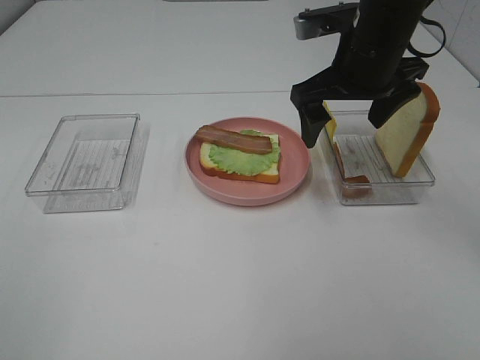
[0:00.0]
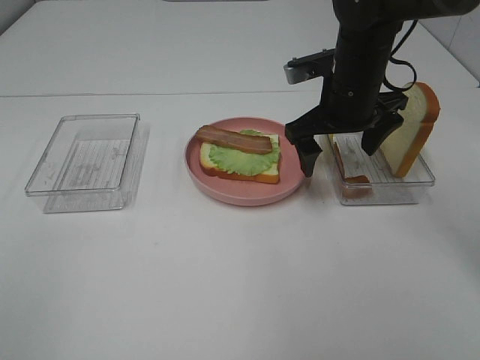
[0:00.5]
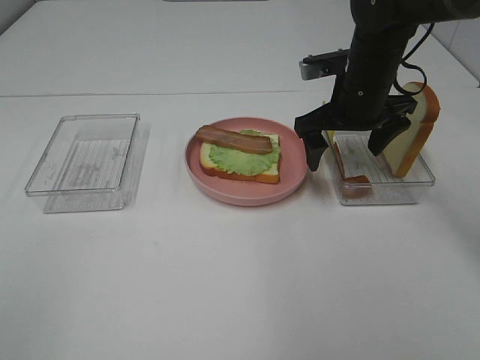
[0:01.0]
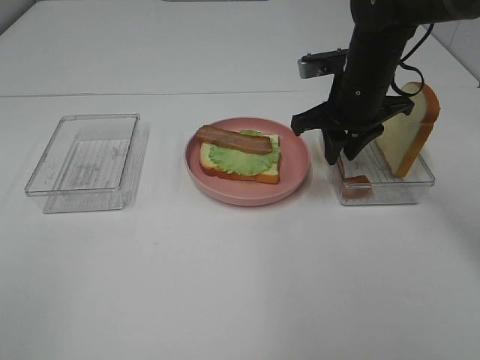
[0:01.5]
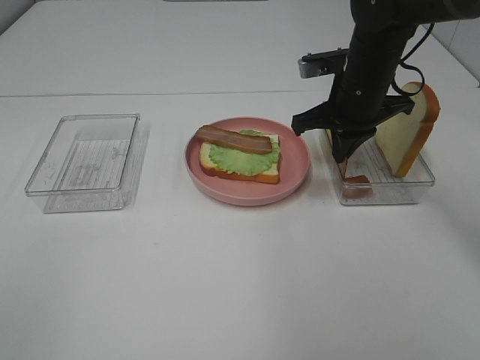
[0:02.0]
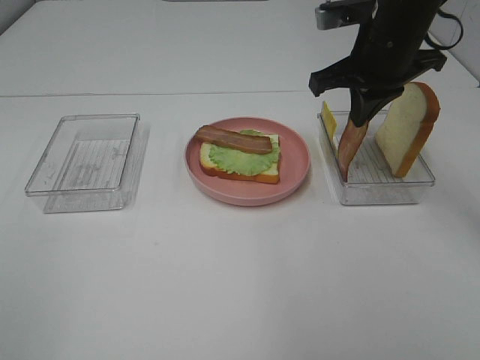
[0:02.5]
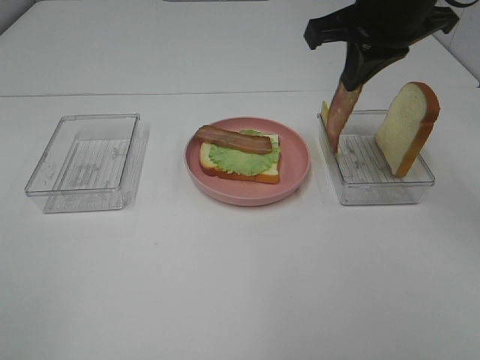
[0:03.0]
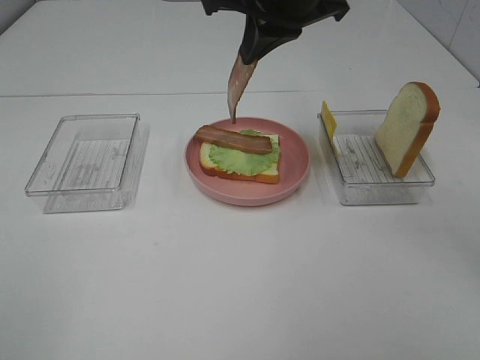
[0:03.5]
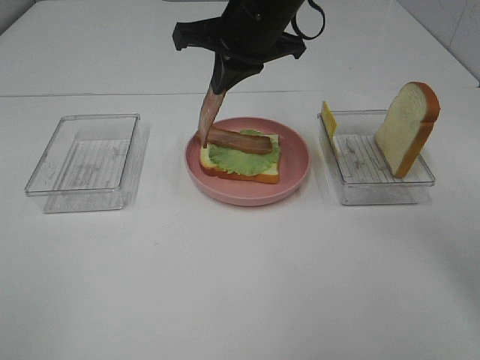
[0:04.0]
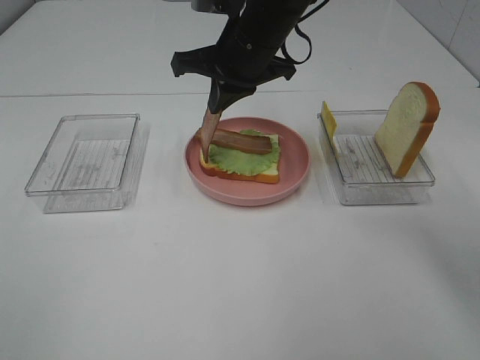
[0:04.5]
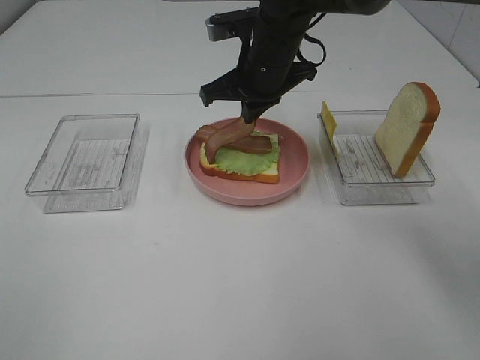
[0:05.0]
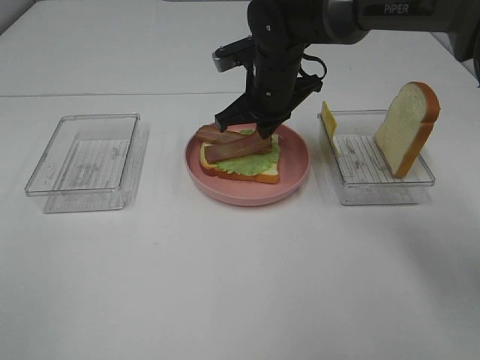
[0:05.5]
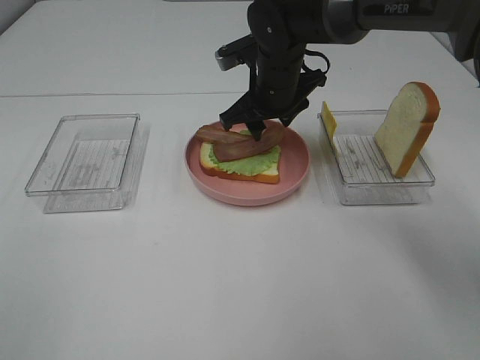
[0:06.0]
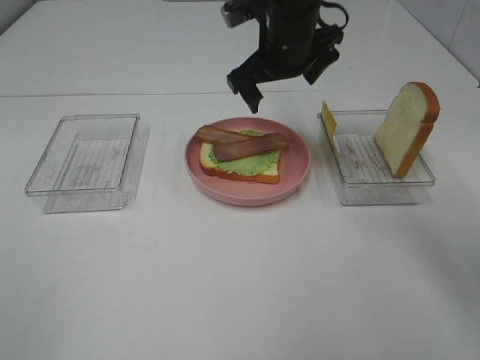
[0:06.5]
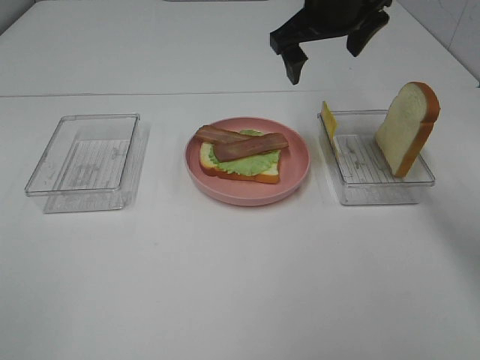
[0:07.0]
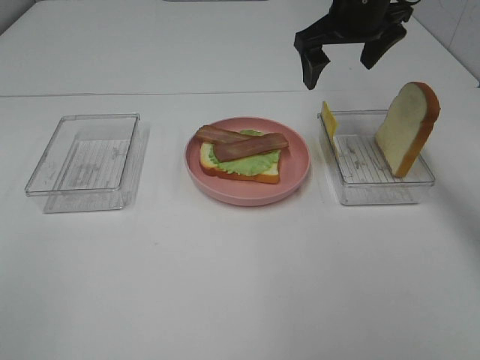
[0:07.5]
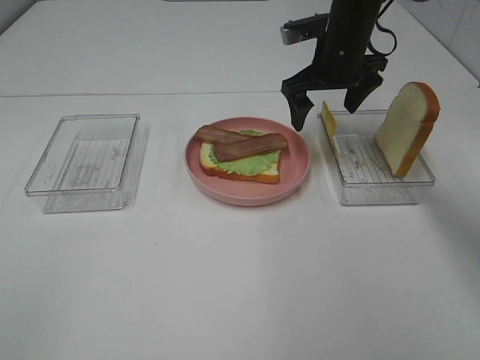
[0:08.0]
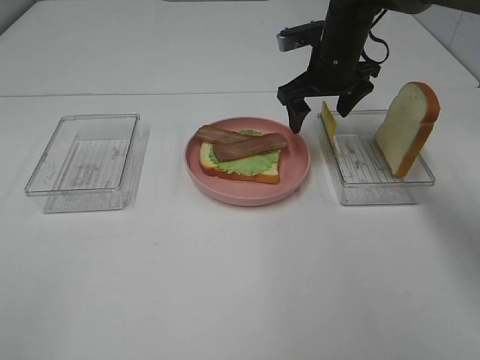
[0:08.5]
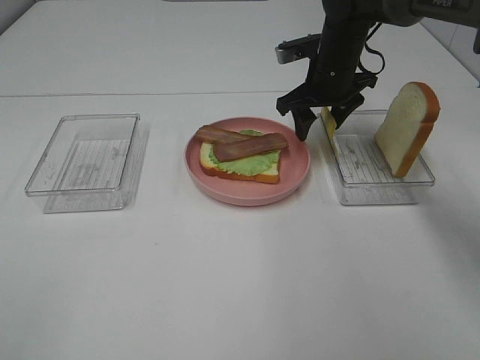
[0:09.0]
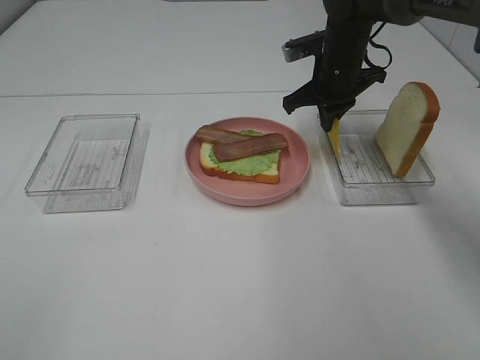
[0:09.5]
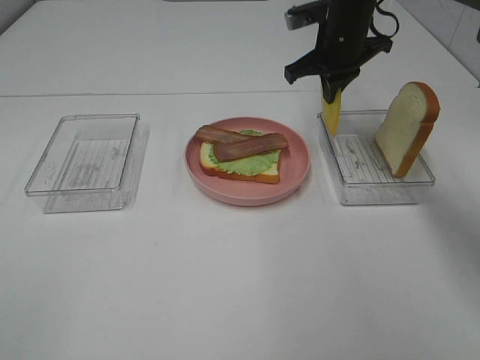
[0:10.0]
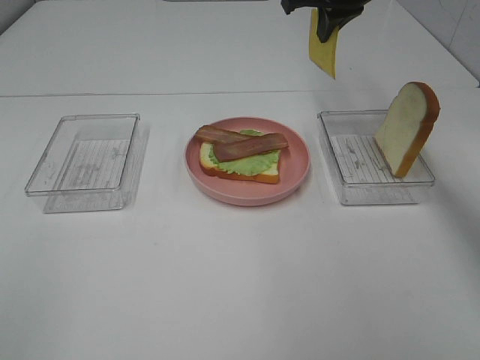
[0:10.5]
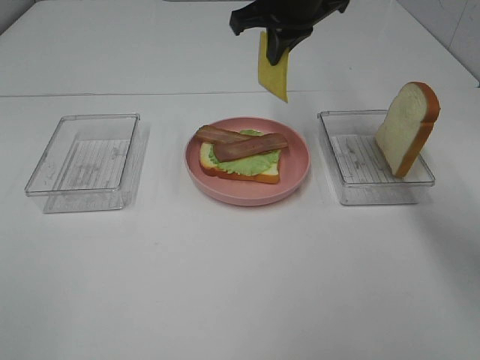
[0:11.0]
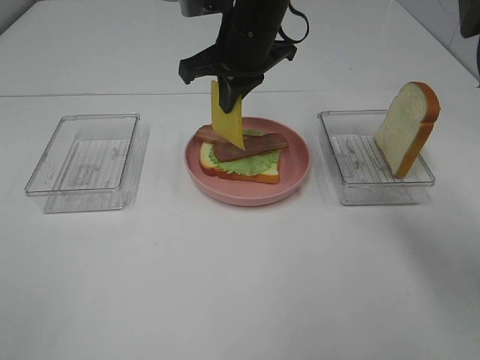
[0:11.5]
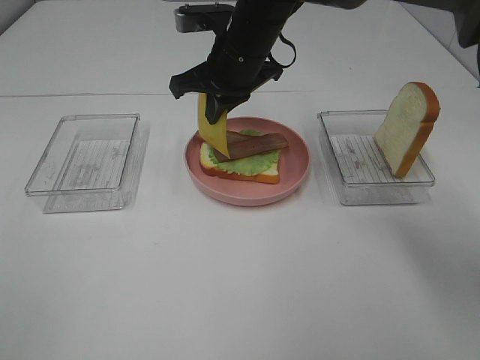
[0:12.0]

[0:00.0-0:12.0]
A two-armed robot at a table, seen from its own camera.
Task of the whole recording: Make sandwiches.
Step, 0:02.0 to 0:06.0: Right hand:place bacon on bacon.
Step, 0:06.5 to 0:09.5: Right hand:grab the cheese slice.
0:00.0 to 0:02.0: The right gripper heads downward, covering about 5 cm, and closes.
0:02.0 to 0:04.0: The right gripper travels to the left and upward by some 15 cm.
0:04.0 to 0:06.0: The right gripper goes roughly 10 cm downward, and opens.
0:06.0 to 0:08.0: The right gripper is displaced to the right by about 10 cm, reaches roughly 10 cm upward, then returns, and opens its fingers.
0:08.0 to 0:10.0: The right gripper closes its fingers.
0:10.0 to 0:12.0: The right gripper travels to the left and backward by some 15 cm.

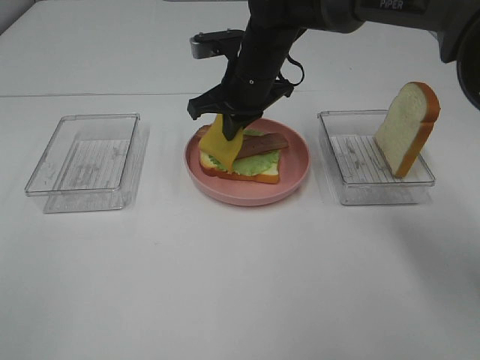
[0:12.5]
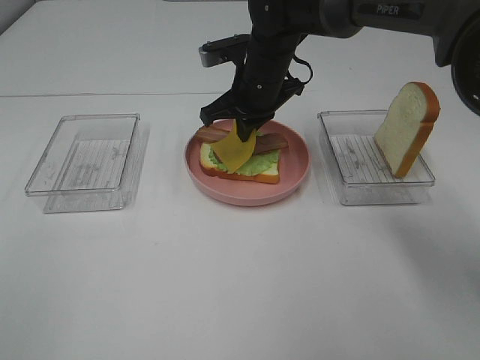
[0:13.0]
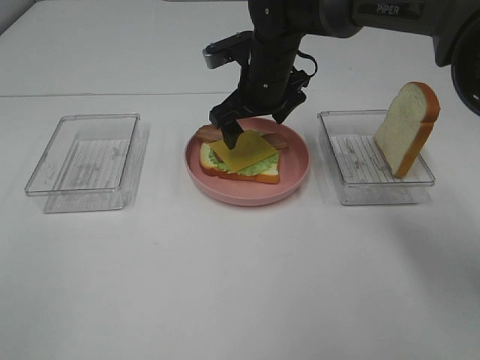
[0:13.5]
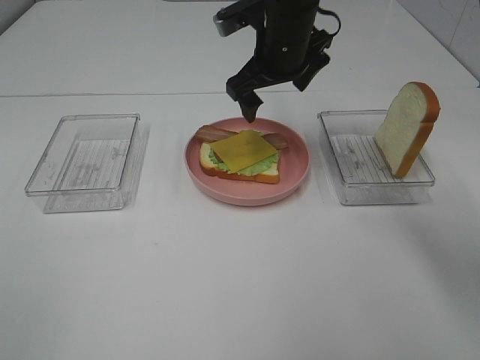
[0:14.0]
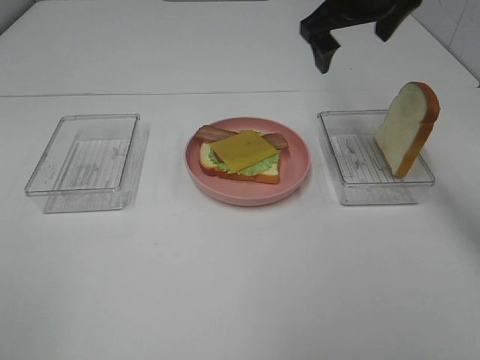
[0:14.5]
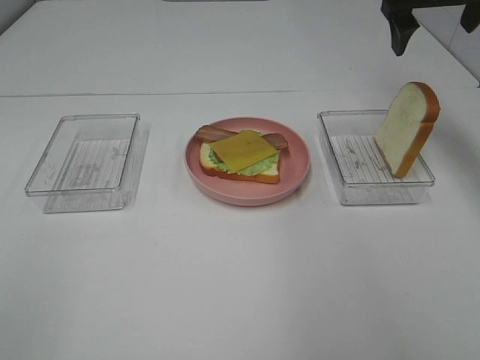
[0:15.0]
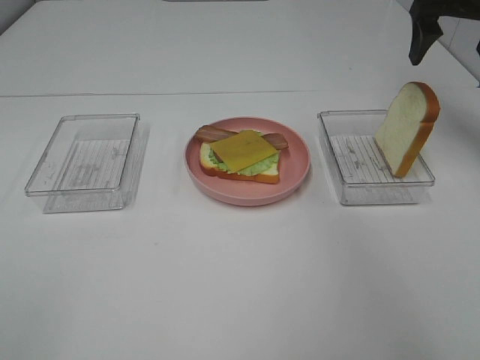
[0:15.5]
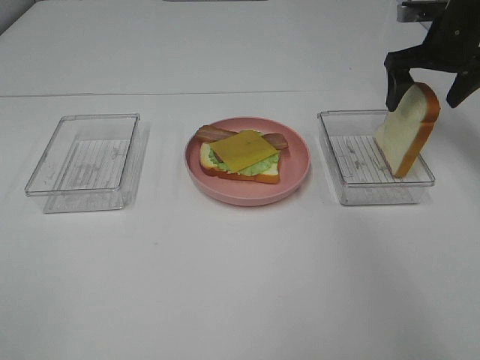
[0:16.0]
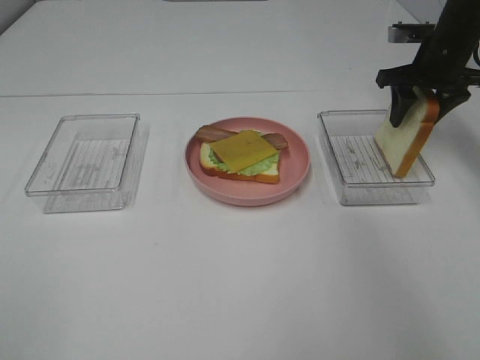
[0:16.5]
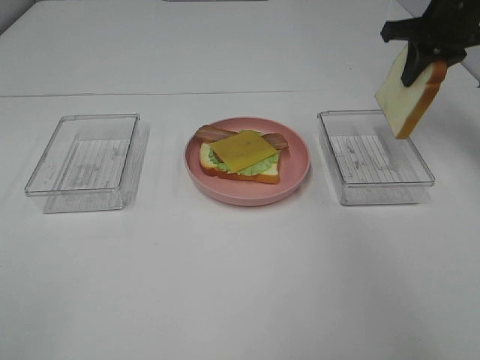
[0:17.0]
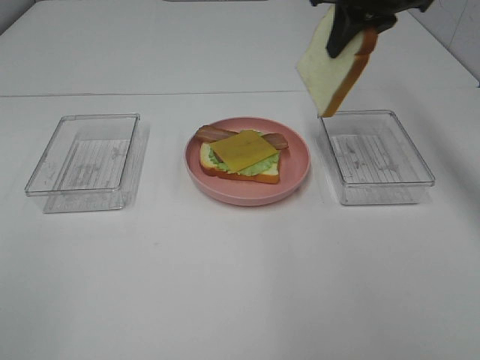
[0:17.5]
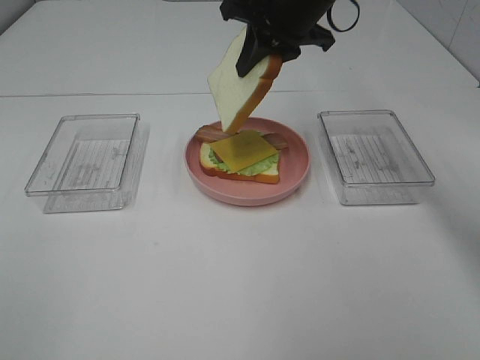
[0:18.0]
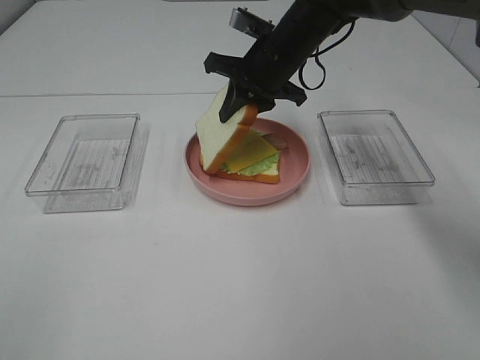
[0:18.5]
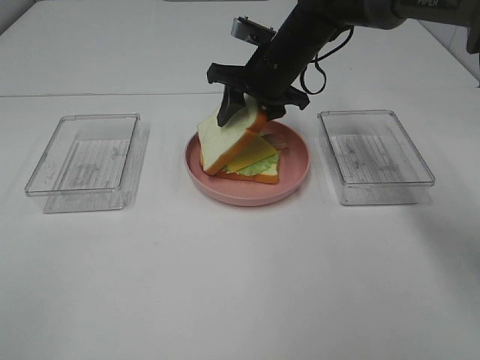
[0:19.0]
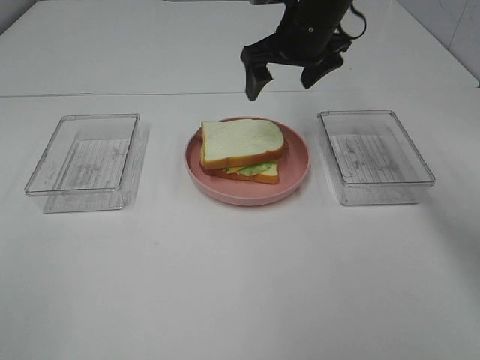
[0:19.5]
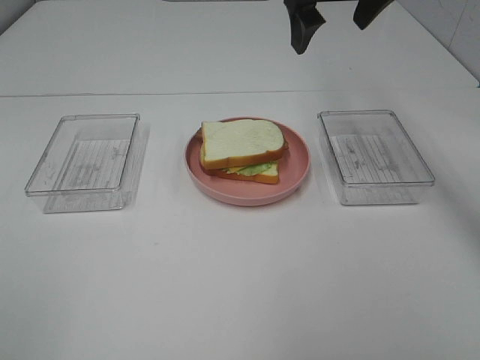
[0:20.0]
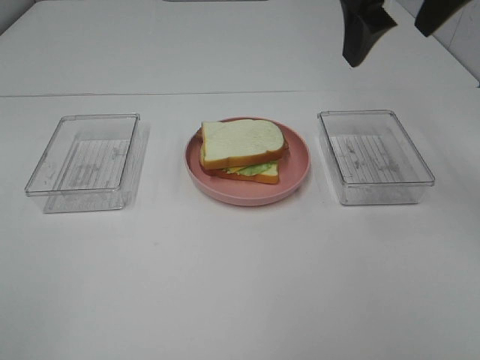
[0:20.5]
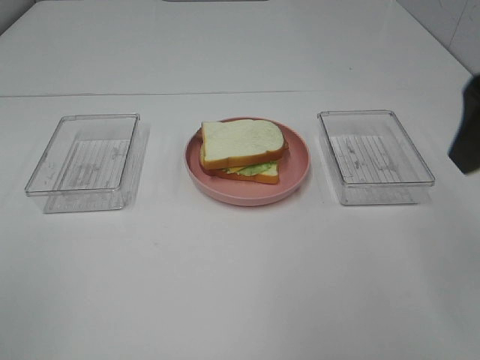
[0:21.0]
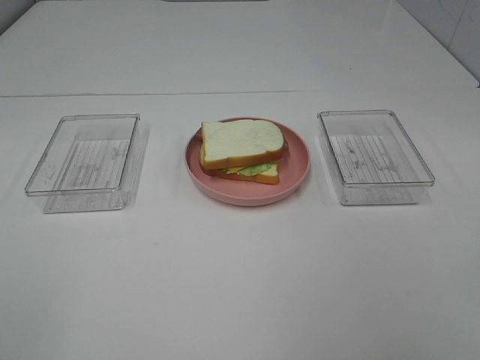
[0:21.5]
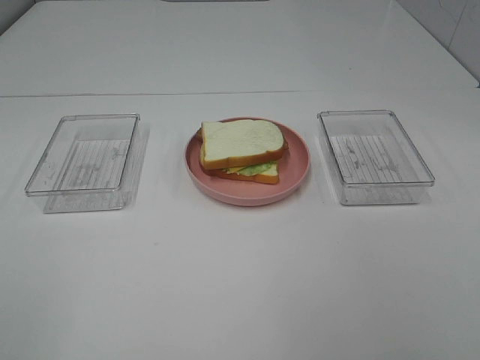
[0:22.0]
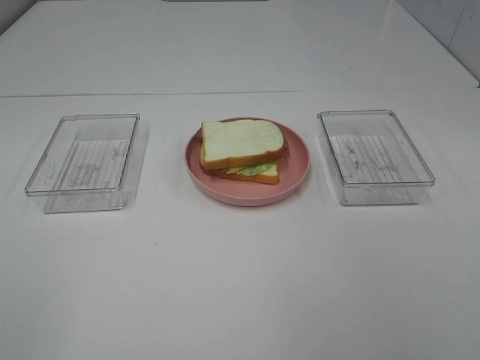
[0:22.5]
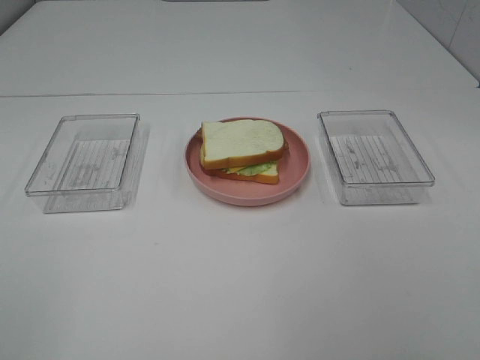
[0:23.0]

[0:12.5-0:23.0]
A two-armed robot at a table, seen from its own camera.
Task of the whole recording: Make sandwiches.
Step, 0:14.5 to 0:16.5: Right hand:grab the bread slice.
Step, 0:17.0 to 0:19.5: Right hand:place the bread slice on the cheese slice.
0:12.5 to 0:14.5: The right gripper shifts about 20 cm upward and to the right, and opens.
0:14.5 to 0:16.5: The right gripper shifts roughly 20 cm to the right and downward, and closes.
0:16.5 to 0:19.0: The right gripper heads to the left, covering approximately 20 cm, and closes, then opens again.
0:19.0 to 0:21.0: The right gripper travels backward, upward and to the right by some 35 cm, and opens its fingers.
0:21.0 to 0:23.0: The right gripper travels backward by roughly 20 cm.

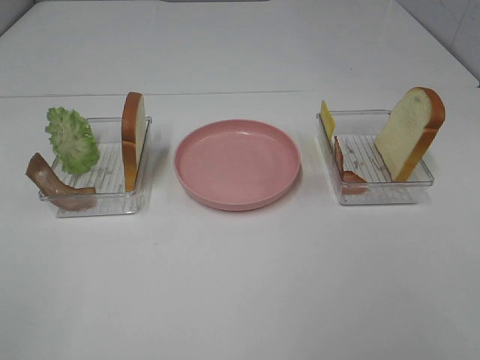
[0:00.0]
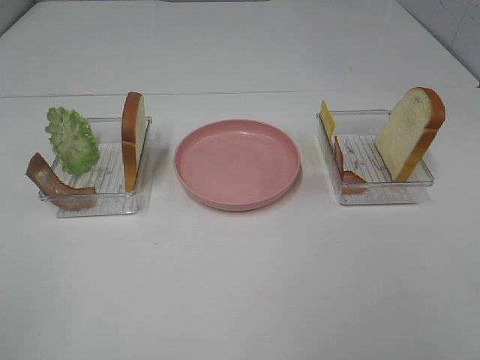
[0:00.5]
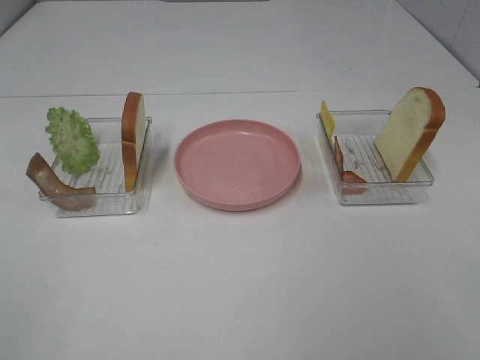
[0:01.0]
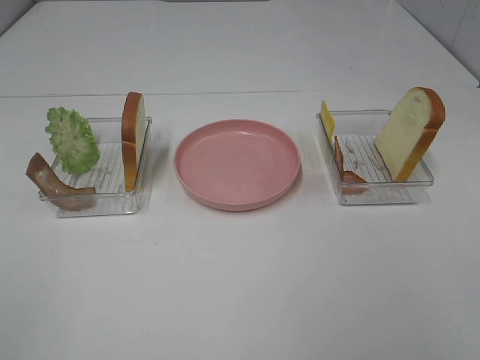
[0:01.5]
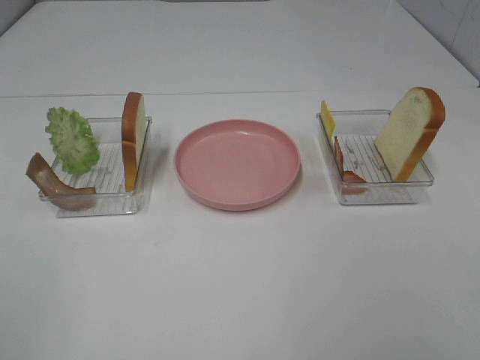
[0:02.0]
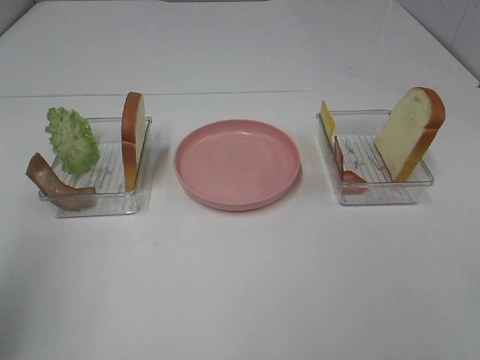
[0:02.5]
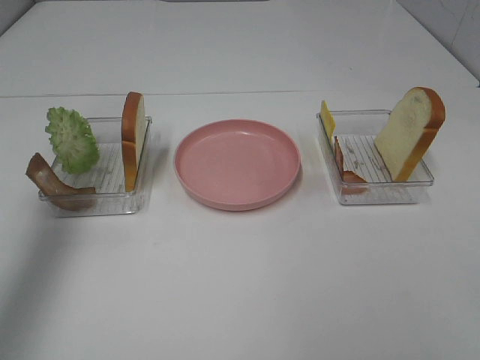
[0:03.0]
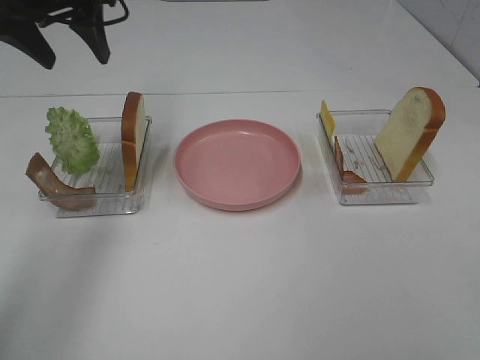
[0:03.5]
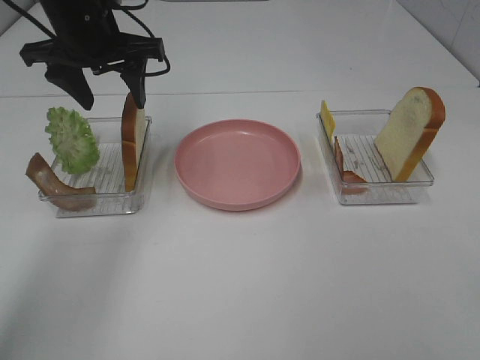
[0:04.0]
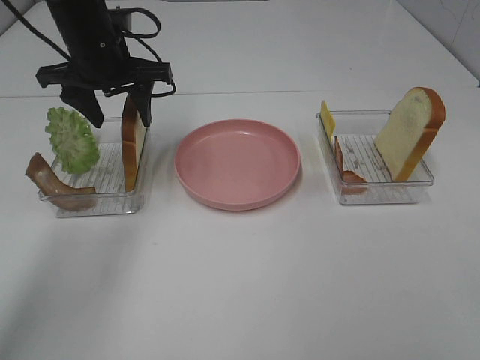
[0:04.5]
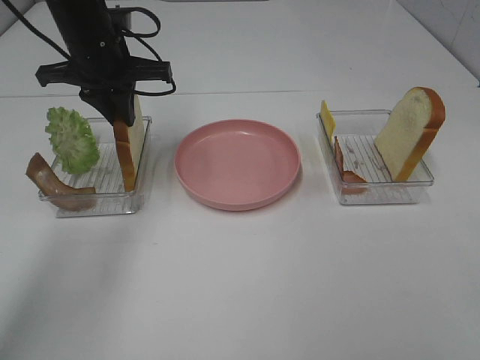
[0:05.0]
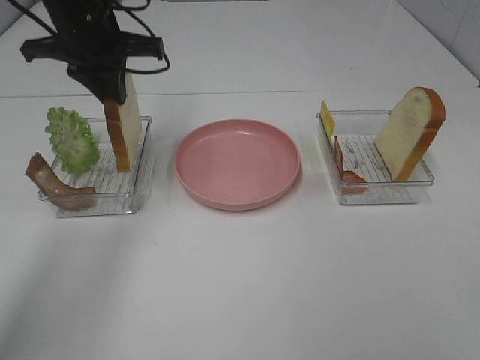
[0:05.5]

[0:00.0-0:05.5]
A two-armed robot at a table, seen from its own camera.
Task of the whole recording: Make sandwiches.
Step, 0:00.0 to 0:05.0: Left hand:grab the bread slice.
0:02.0 to 0:03.5: The left gripper travels forward by some 40 cm.
0:03.5 to 0:05.5: The left gripper closes.
